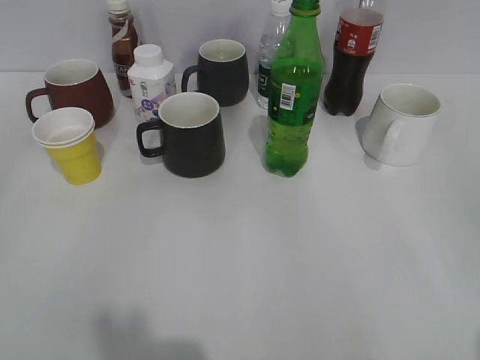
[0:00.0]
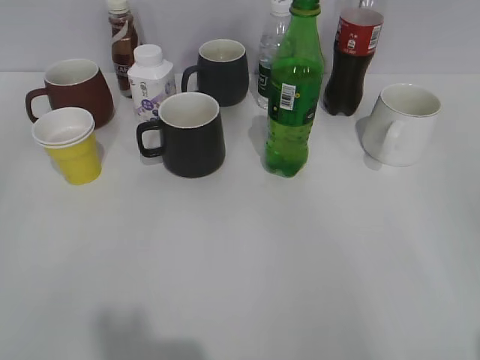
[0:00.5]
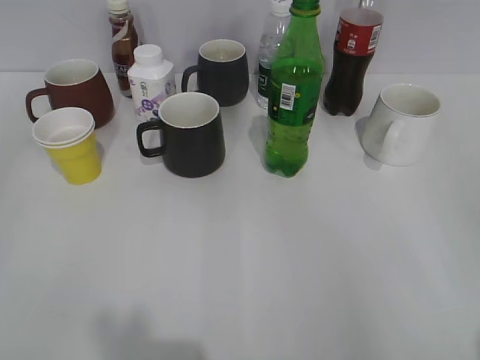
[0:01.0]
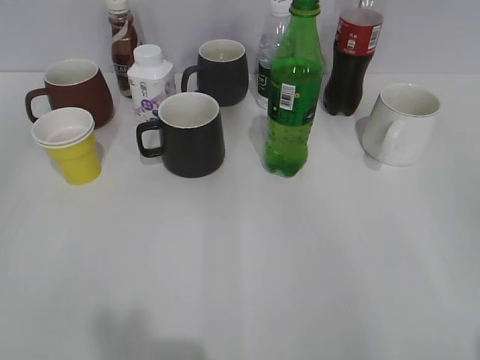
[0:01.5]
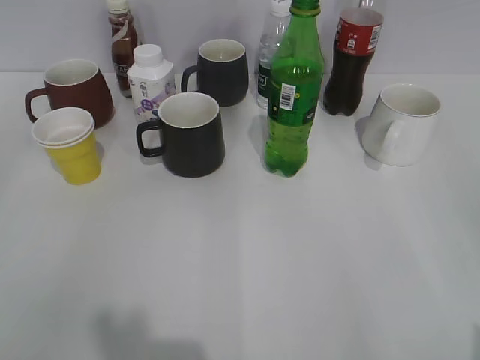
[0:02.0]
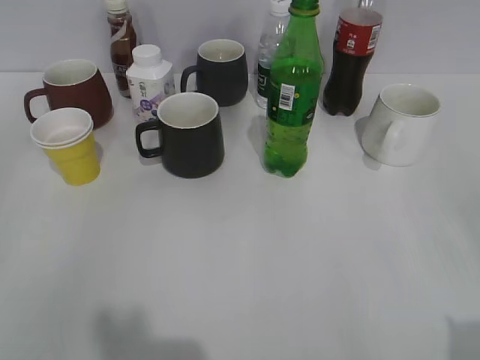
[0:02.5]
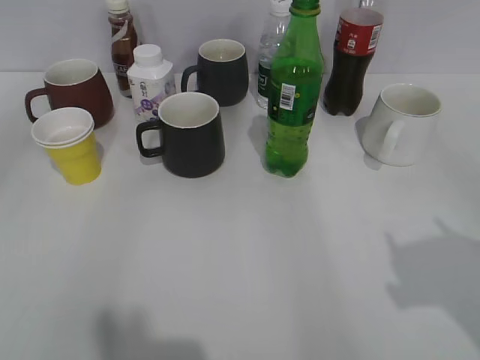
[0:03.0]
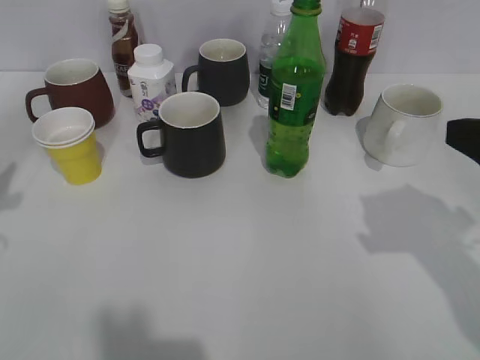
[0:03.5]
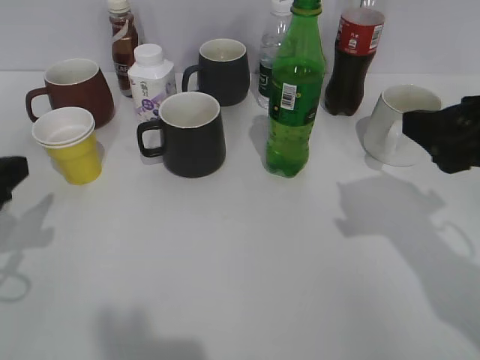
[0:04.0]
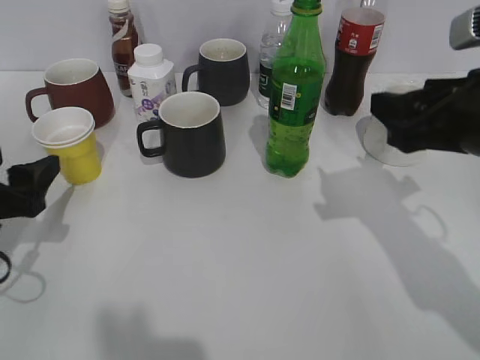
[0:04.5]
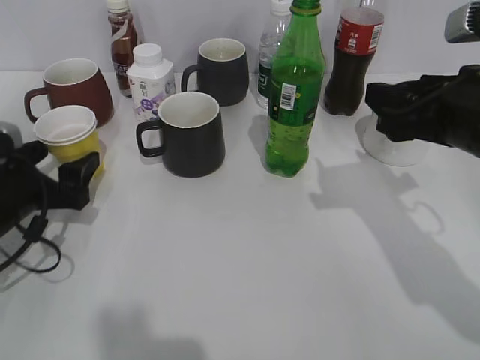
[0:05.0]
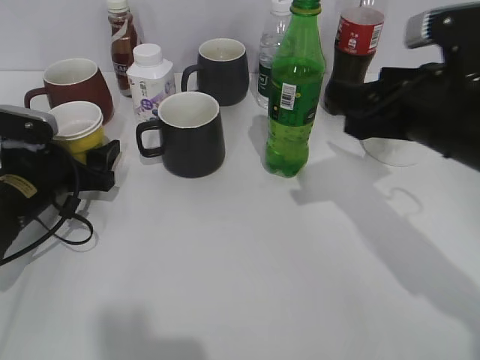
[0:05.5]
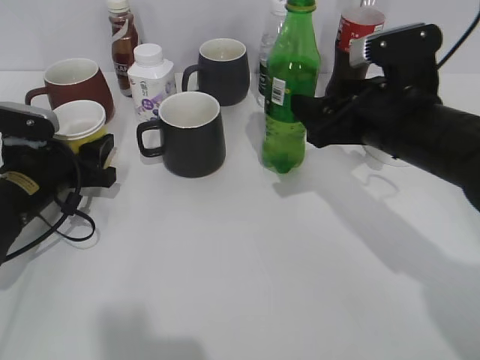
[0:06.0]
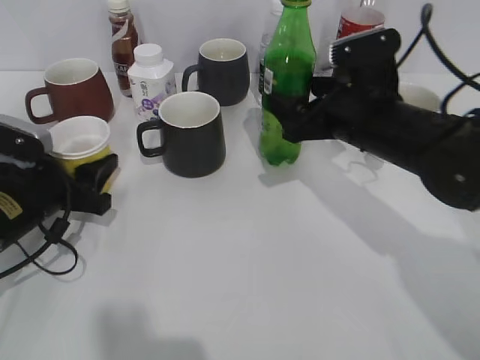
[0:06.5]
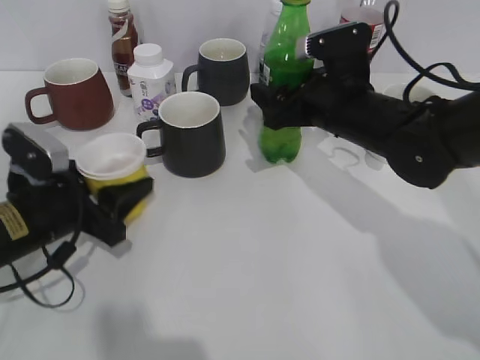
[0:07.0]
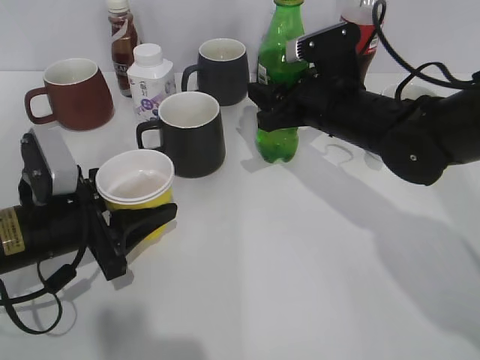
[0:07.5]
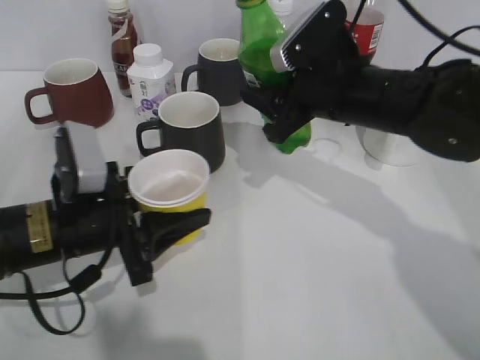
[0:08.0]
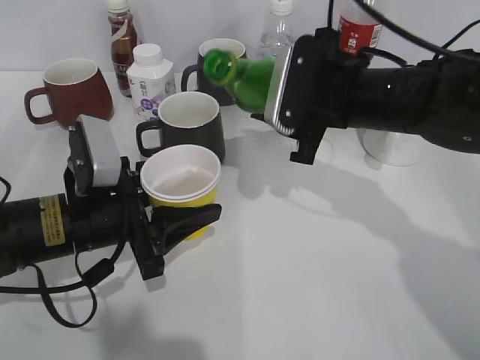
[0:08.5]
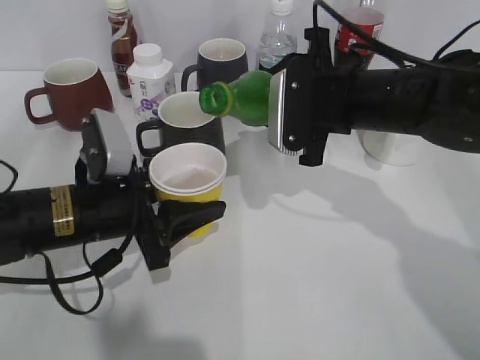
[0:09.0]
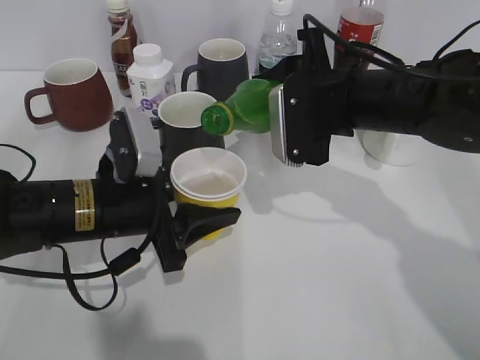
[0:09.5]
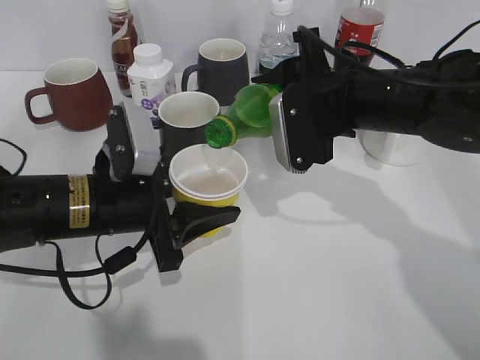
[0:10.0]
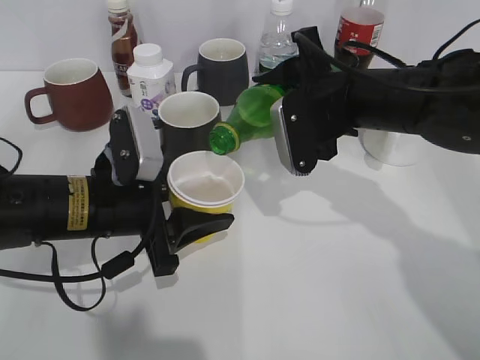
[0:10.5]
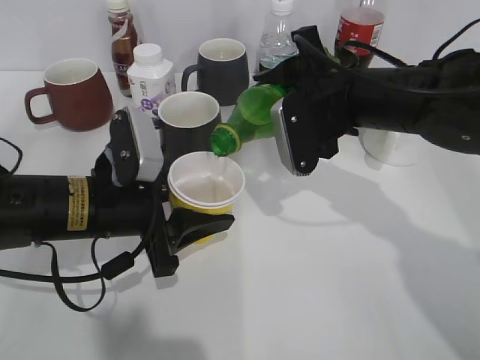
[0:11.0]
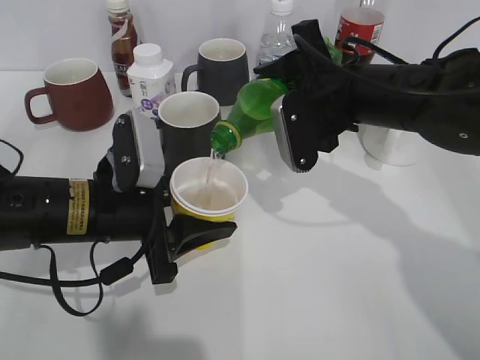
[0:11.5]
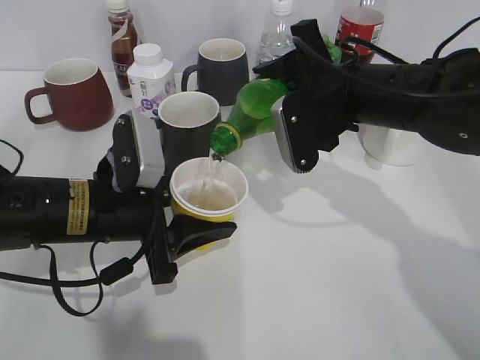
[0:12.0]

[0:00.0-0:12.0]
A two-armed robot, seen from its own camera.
Step, 0:02.0 to 0:02.5: Grasp the yellow paper cup with left gripper.
Step, 0:03.0 to 0:07.0: Grasp the bottle with sprite with right gripper.
0:02.0 to 0:04.0: The grippers both shift forward by approximately 20 cm. The left gripper opens up.
0:04.0 to 0:06.0: The right gripper shifts roughly 15 cm forward, to the left and downward. The left gripper moves forward and downward, roughly 15 cm.
0:06.0 to 0:08.0: The left gripper shifts about 10 cm backward and to the right, while the right gripper moves to the left, about 5 cm, and closes up.
0:10.0 to 0:12.0: The grippers move only a little.

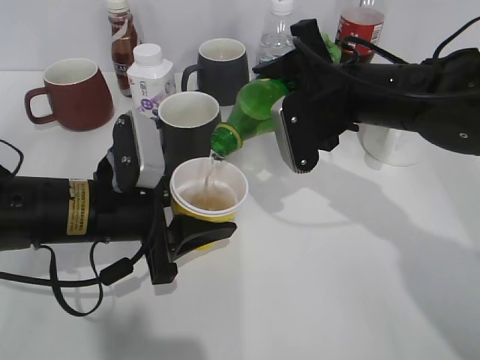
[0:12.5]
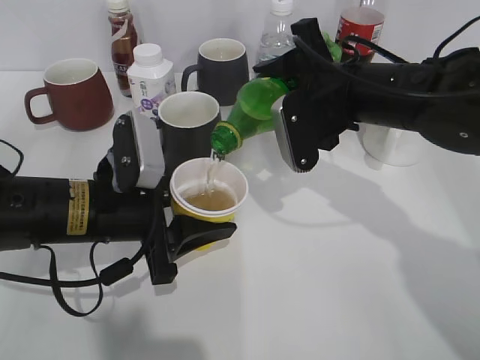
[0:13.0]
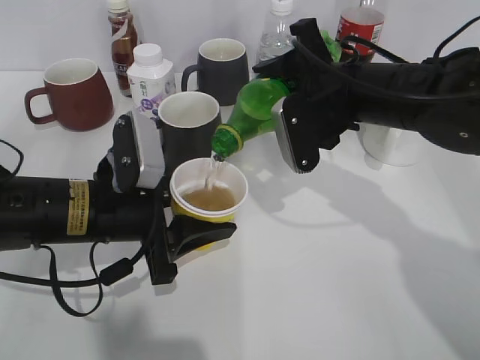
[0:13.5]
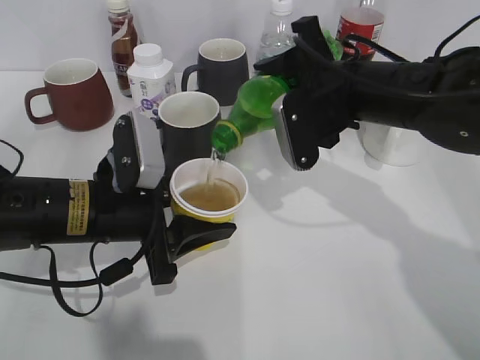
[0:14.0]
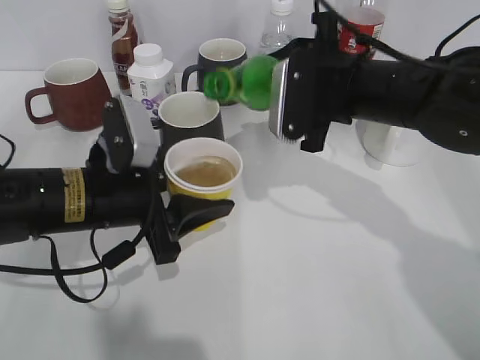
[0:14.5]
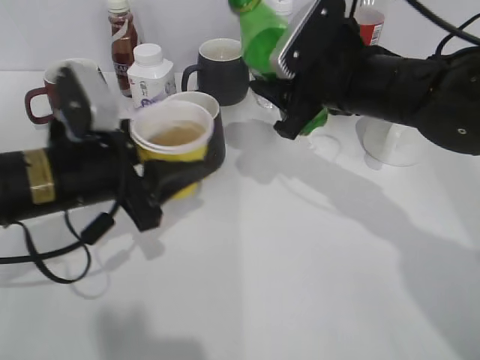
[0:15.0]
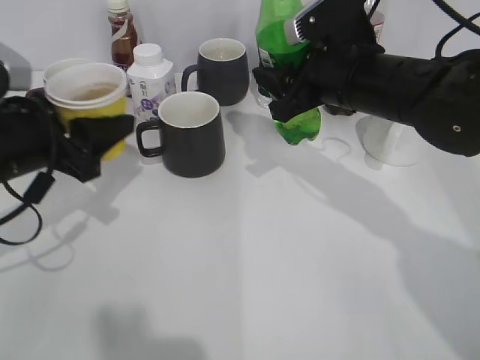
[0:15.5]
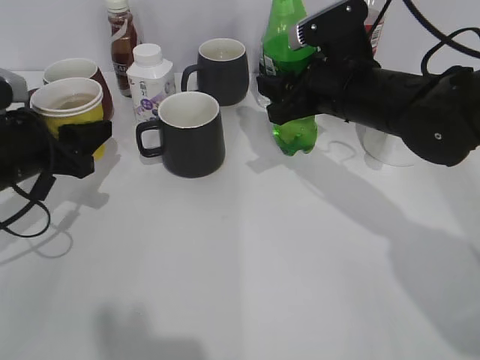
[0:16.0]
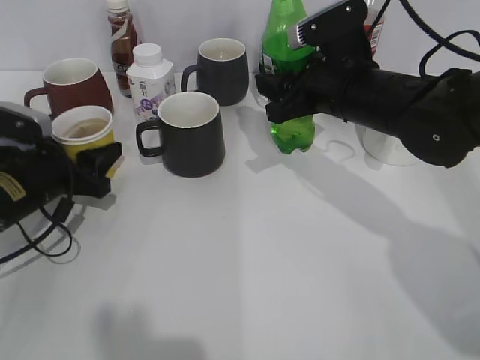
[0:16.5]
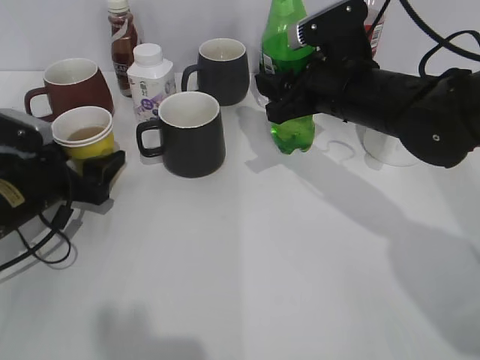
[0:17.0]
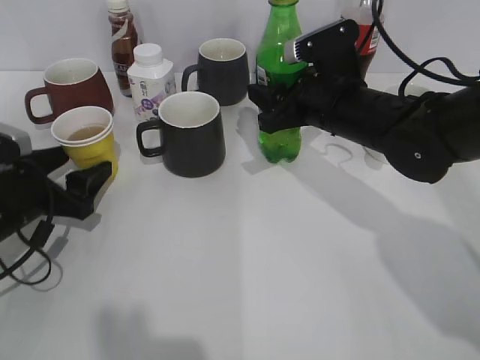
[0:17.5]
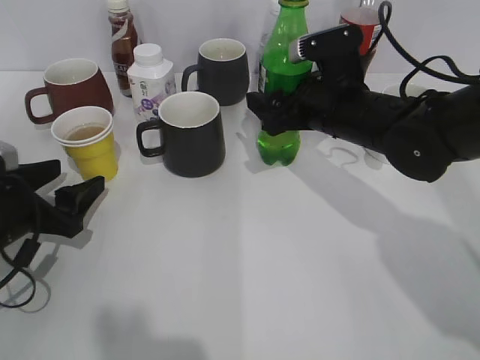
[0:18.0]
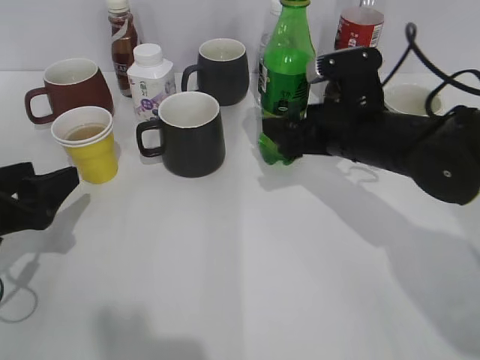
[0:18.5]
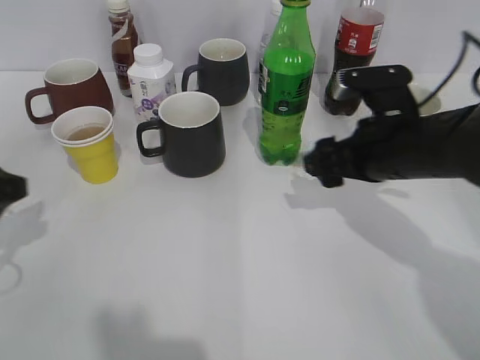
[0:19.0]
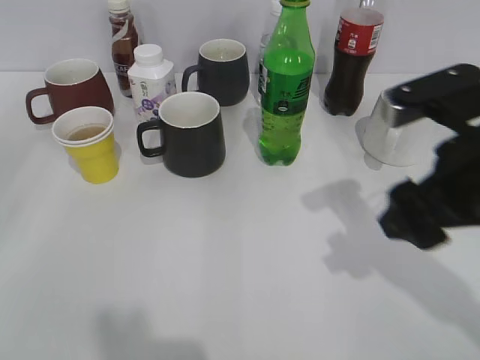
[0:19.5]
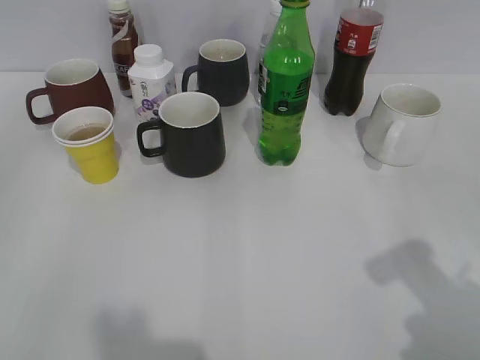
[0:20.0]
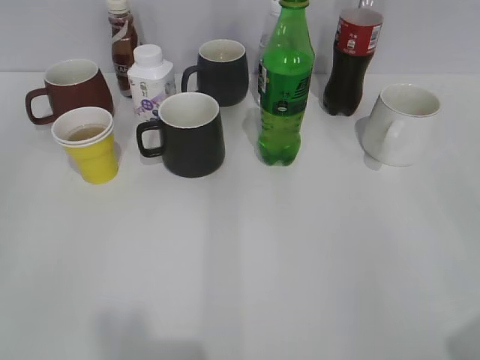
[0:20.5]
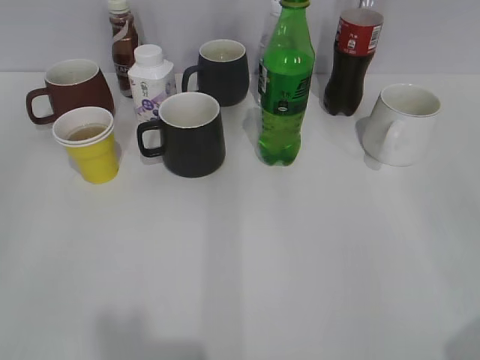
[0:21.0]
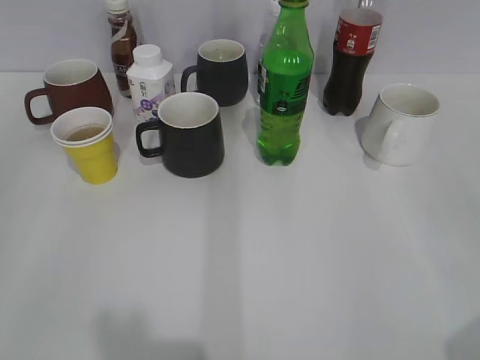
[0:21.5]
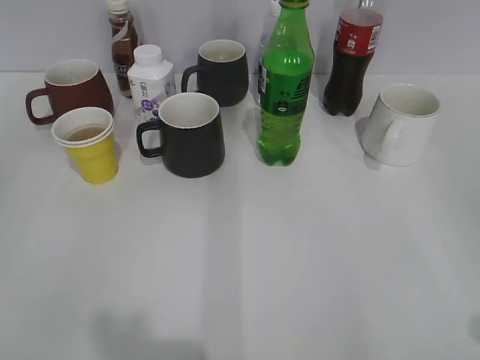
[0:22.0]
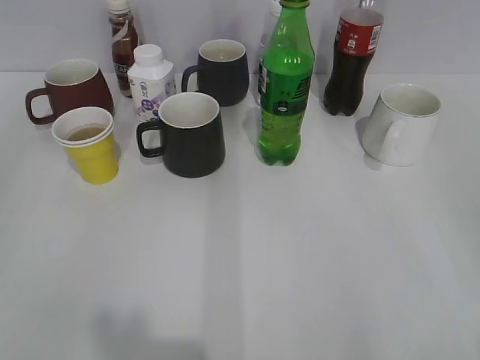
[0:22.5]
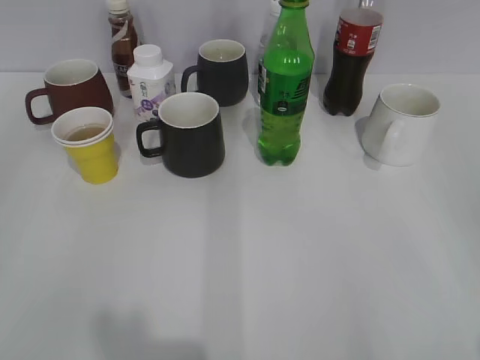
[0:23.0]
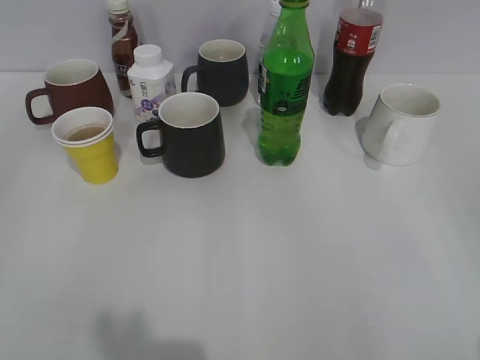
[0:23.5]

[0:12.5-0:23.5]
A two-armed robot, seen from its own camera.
Step, 0:15.0 to 0:16.0: Place the yellow paper cup on the table with left gripper.
Step, 0:16.5 to 0:18.0: Place the sprite bottle on the table with right gripper.
0:14.5 to 0:16.0: The left gripper goes roughly 10 cm to the left.
0:16.0 to 0:18.0: The left gripper moves downward, approximately 5 cm, and opens up. Meanwhile the right gripper opens up.
0:18.0 to 0:20.0: The left gripper is displaced backward and upward by about 30 cm. The right gripper travels backward, to the right and upward by some 30 cm, and closes its fingers.
0:20.0 to 0:21.5: The right gripper moves backward and to the right, some 10 cm.

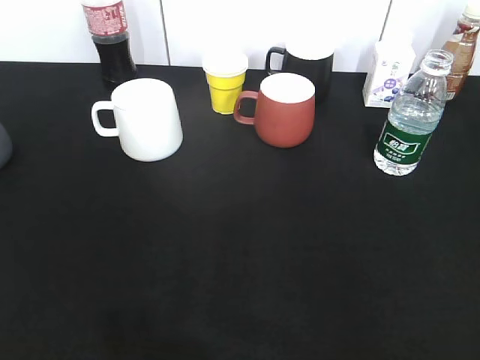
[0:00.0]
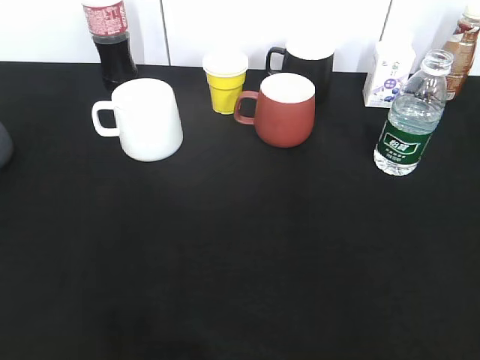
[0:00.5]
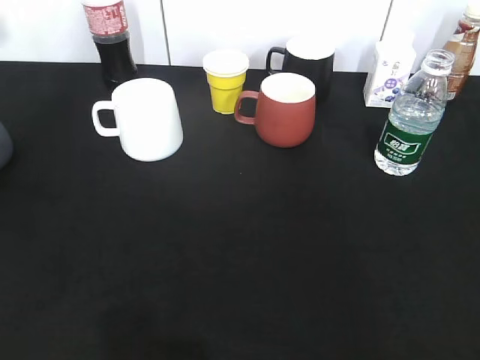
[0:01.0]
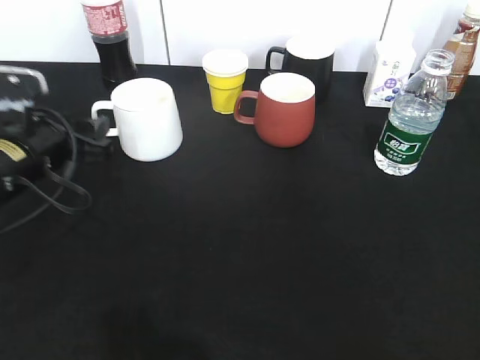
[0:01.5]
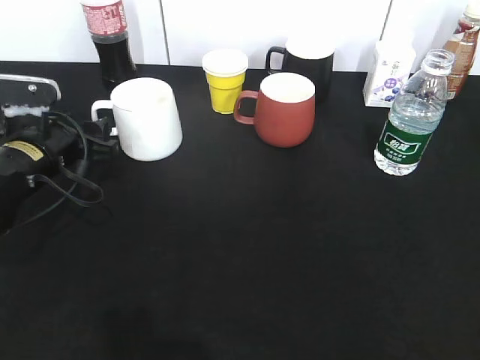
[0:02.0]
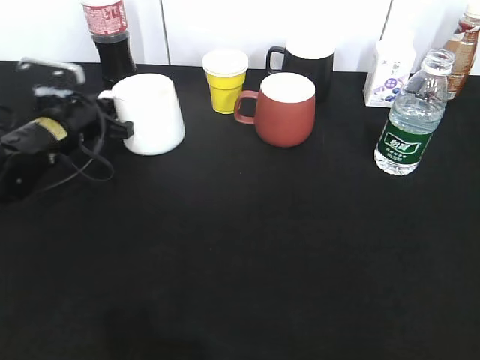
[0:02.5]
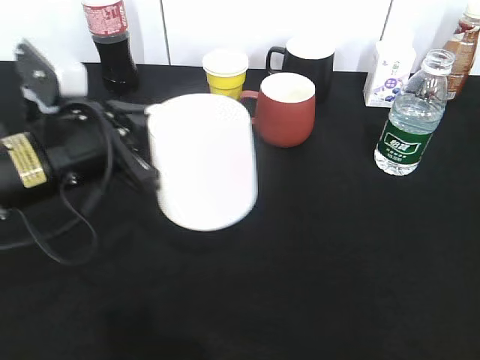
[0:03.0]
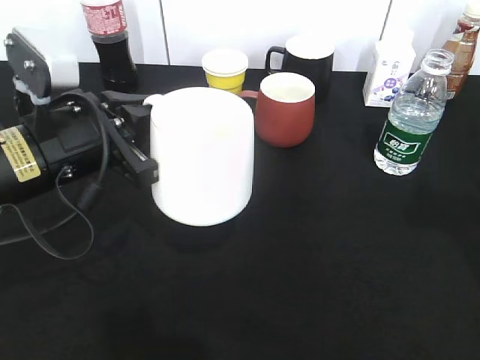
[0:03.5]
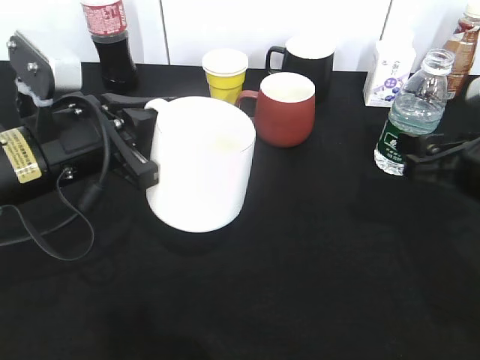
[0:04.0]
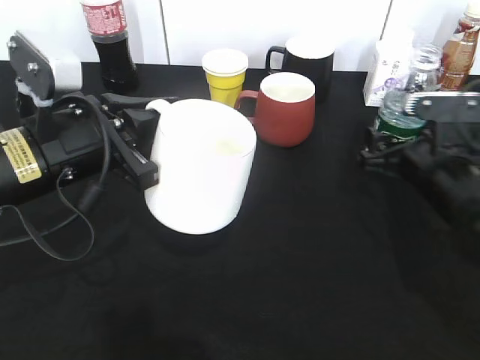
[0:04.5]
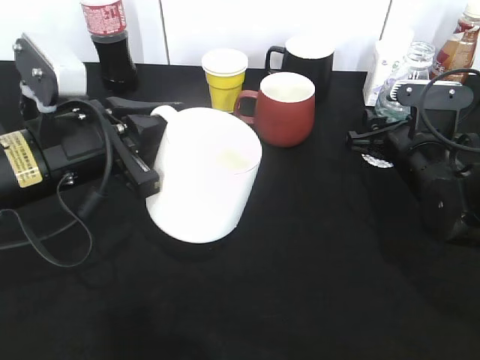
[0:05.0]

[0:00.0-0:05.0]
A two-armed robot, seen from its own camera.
Step, 0:00.0 to 0:02.0: Grasp the white cup with left gripper.
Step, 0:03.5 to 0:05.0: Grasp the bottle with water with right gripper.
0:00.0 to 0:02.5: The left gripper travels forward and downward by approximately 40 cm, and closes up.
0:02.5 to 0:05.0: The left gripper goes roughly 20 cm backward, upward and to the right. Meanwhile the right gripper heads forward and downward, covering about 35 cm, and closes its fingers.
